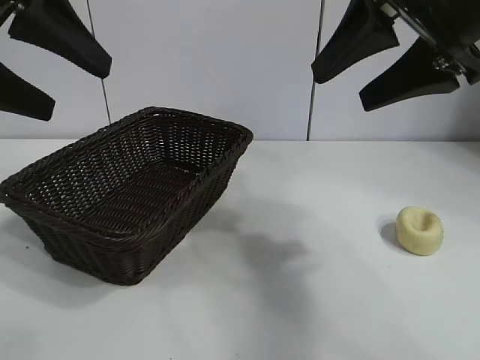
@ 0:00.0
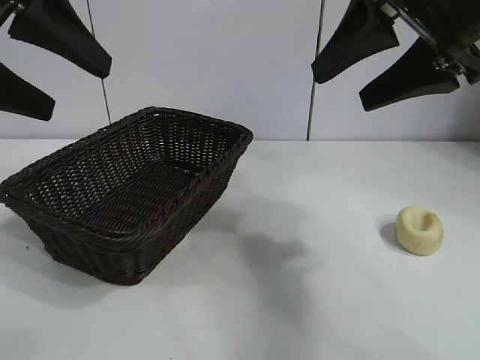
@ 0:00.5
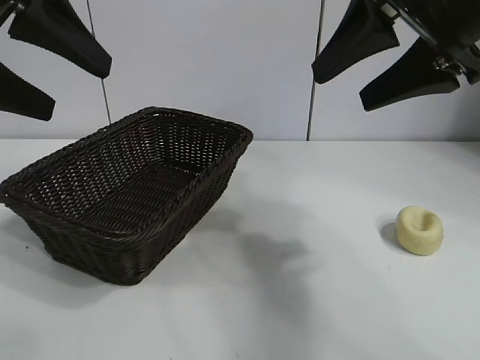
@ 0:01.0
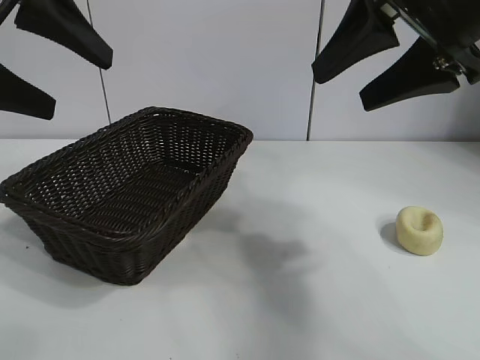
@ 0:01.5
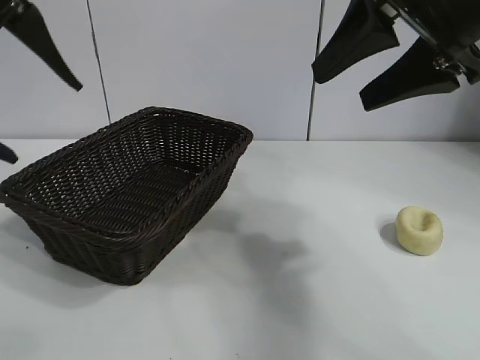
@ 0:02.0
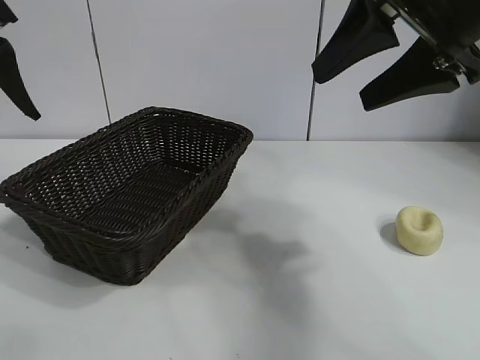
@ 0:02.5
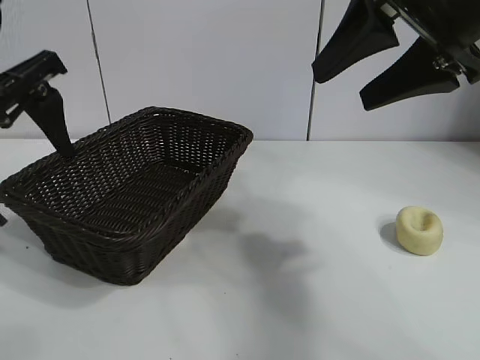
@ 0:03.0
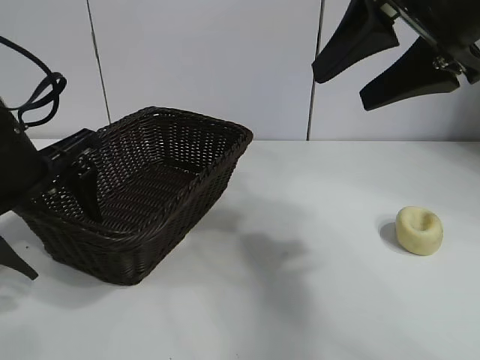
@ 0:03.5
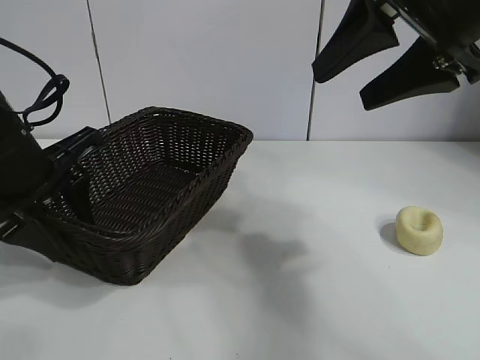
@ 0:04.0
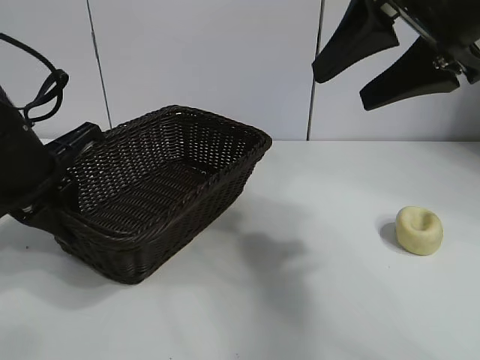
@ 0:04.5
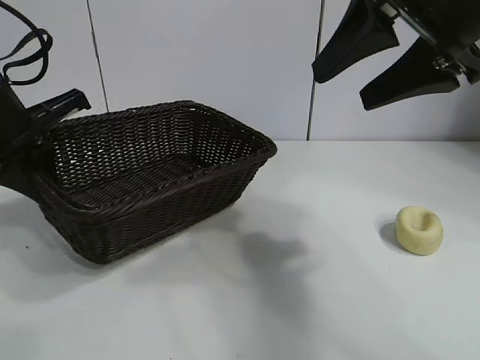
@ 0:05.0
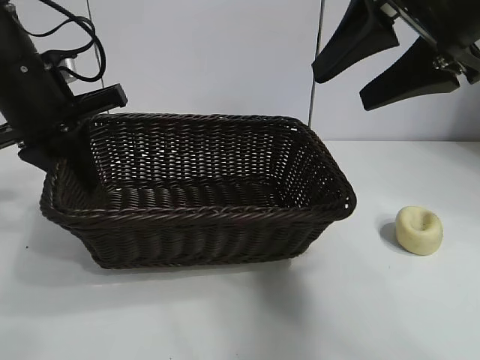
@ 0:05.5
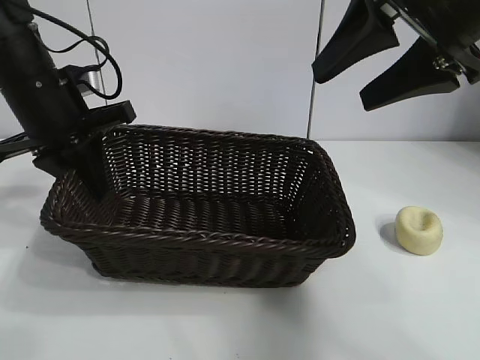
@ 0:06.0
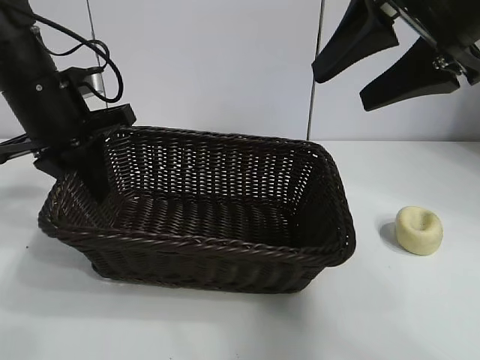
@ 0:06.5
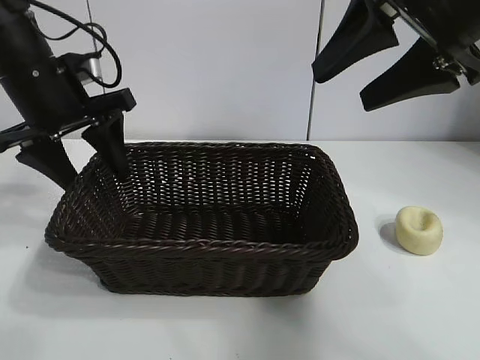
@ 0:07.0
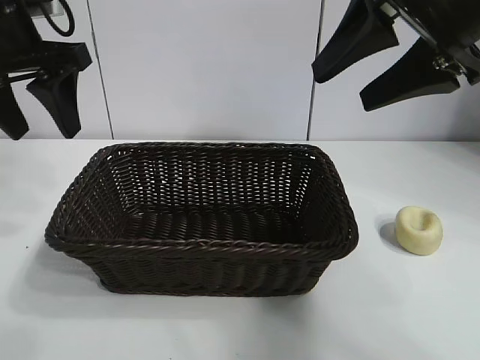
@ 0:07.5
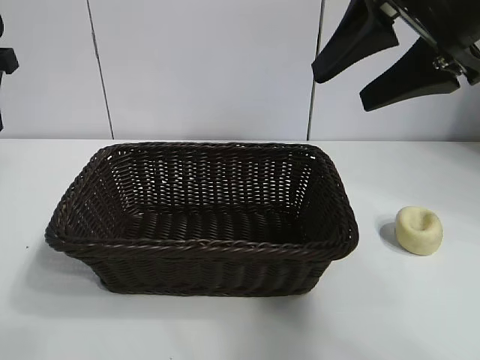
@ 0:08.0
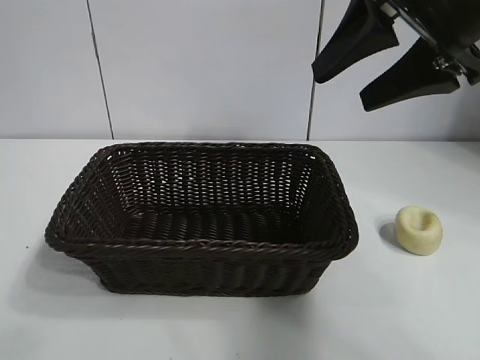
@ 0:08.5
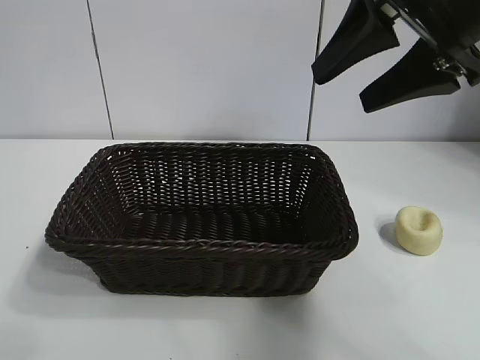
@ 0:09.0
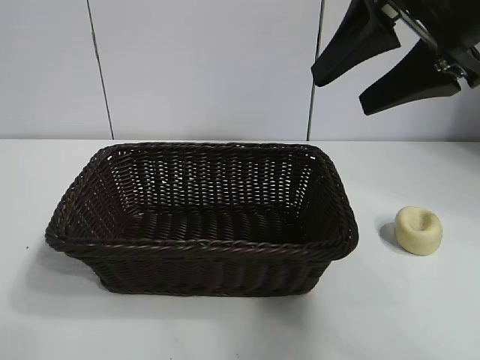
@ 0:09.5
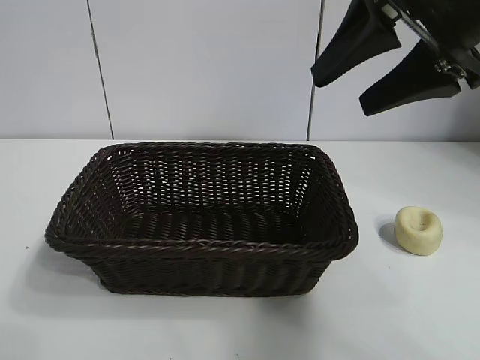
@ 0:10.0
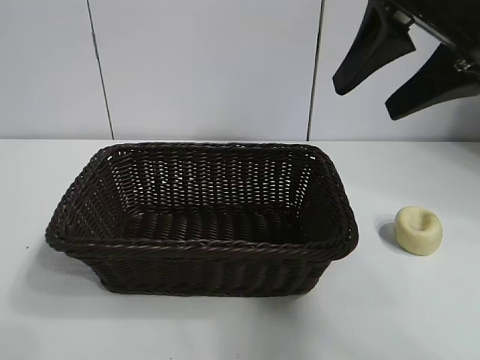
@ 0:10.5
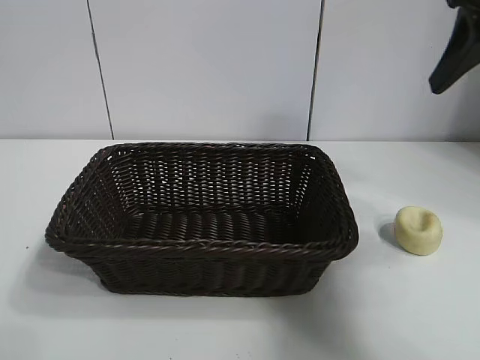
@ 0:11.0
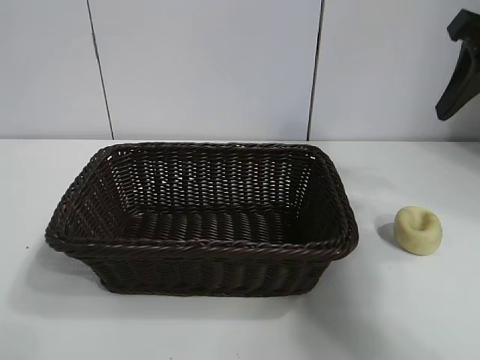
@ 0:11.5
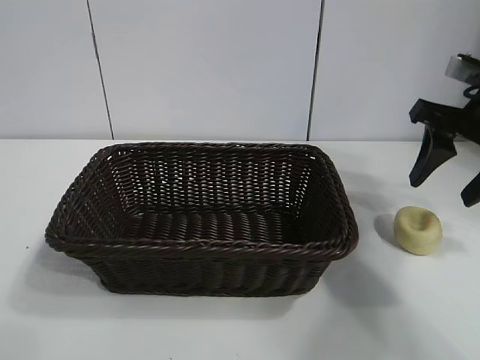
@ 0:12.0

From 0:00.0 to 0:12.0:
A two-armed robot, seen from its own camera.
Task of the whole recording: pick up the egg yolk pastry and put it into the basket.
Step, from 0:01.5 to 0:04.0: Grasp the basket with left gripper.
Step, from 0:04.5 to 0:07.0: Place the basket in the center of view with left gripper.

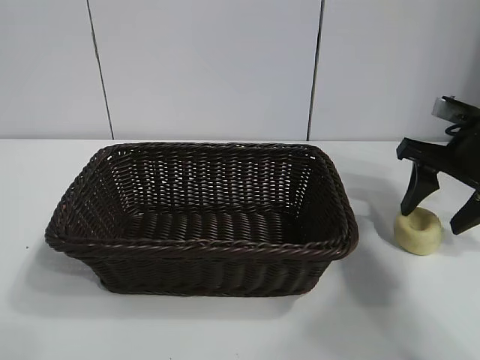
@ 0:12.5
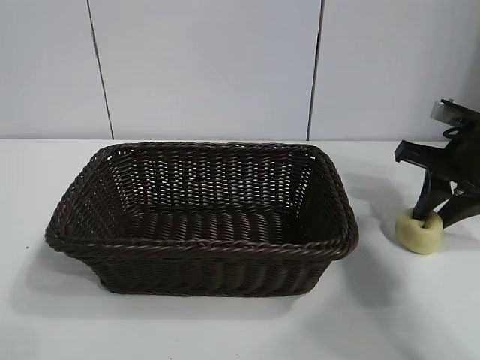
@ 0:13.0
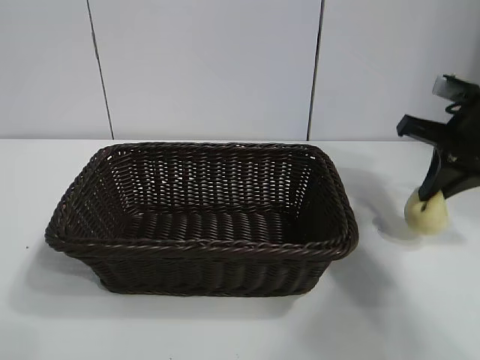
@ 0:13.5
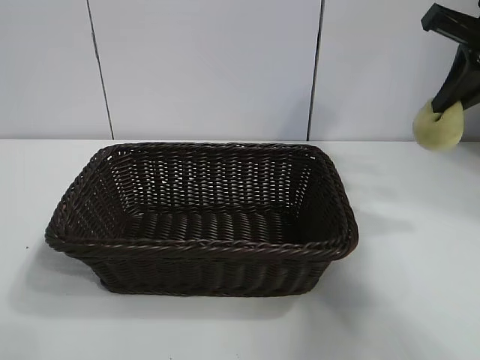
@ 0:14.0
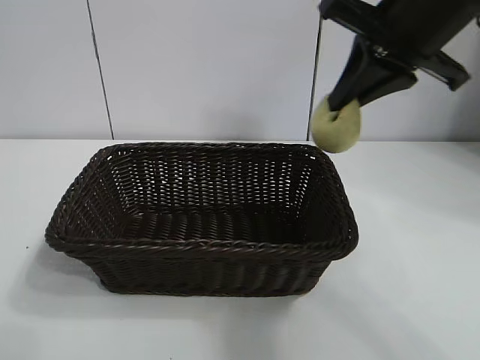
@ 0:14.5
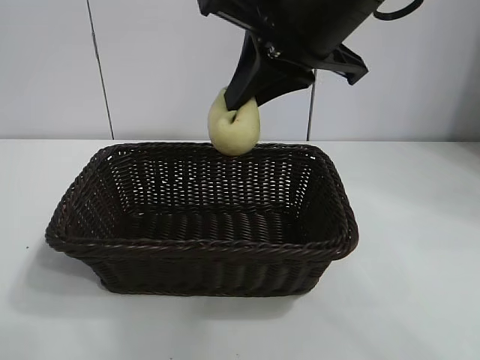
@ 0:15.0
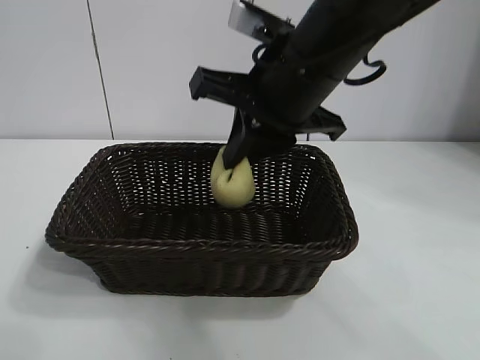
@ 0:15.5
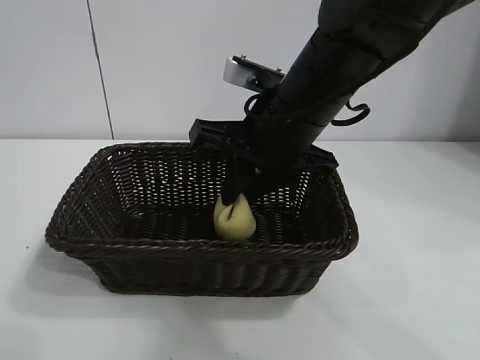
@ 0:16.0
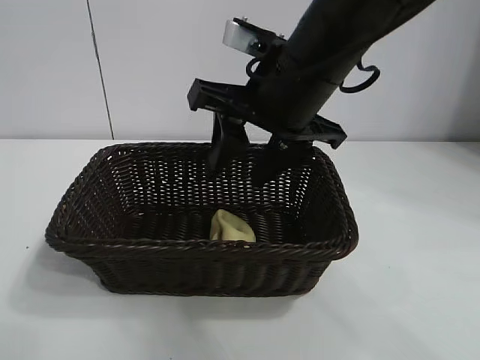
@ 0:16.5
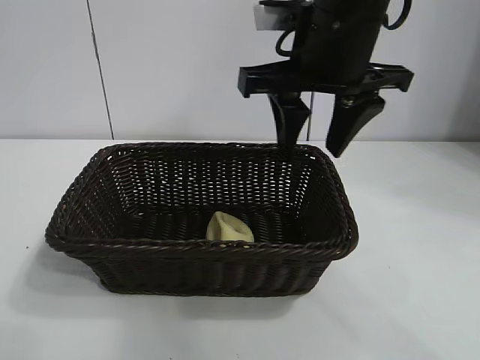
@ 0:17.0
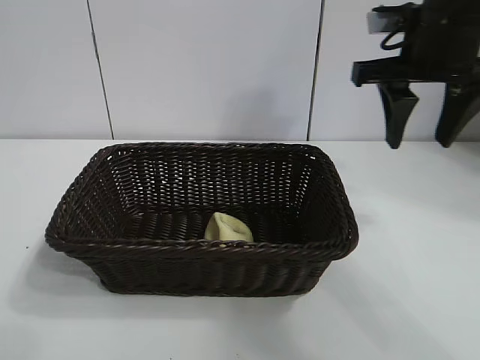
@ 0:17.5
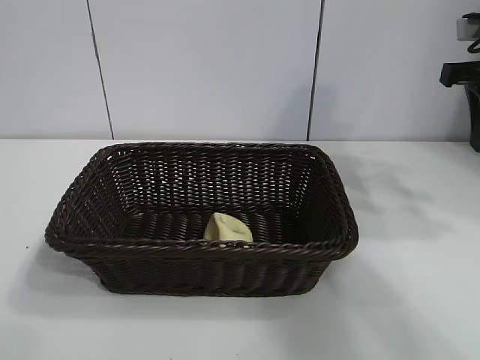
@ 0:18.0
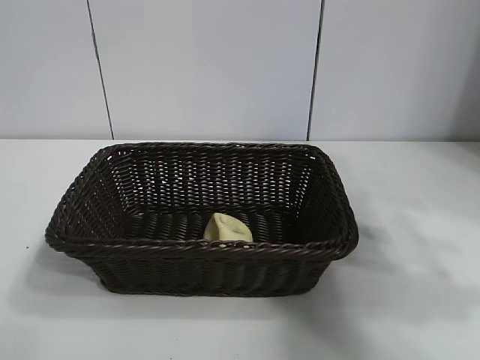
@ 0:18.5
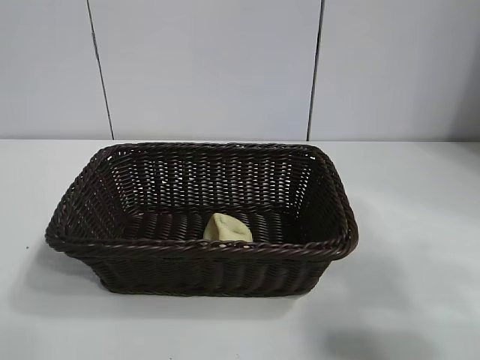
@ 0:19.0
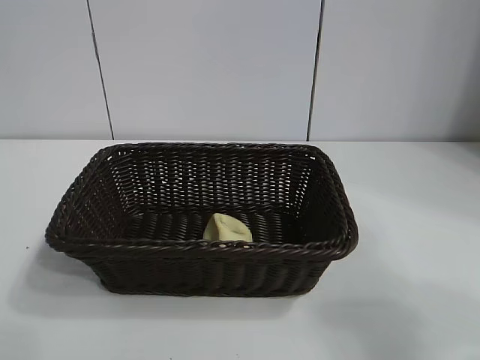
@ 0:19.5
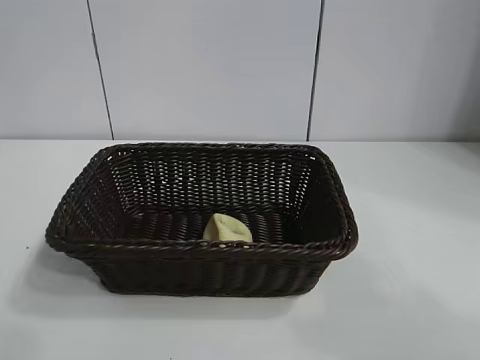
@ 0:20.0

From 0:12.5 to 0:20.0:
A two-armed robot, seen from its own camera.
Task of the whole recording: pick up the egg yolk pastry and put it into the basket.
Step, from 0:13.5 to 0:16.0: Place the egg yolk pastry in the basket with right gripper.
